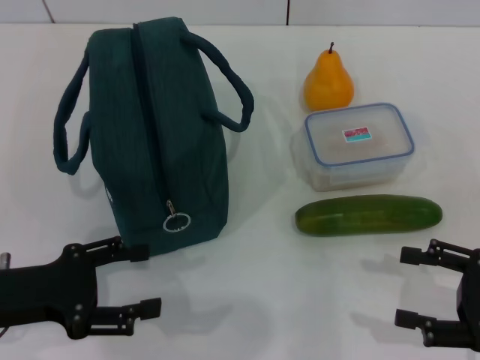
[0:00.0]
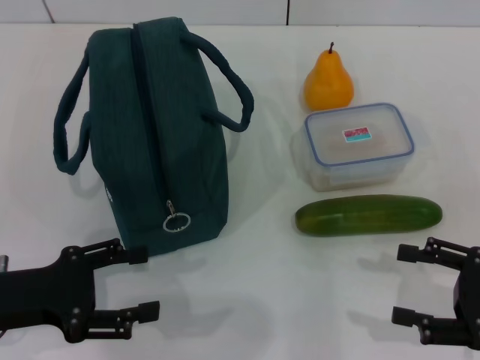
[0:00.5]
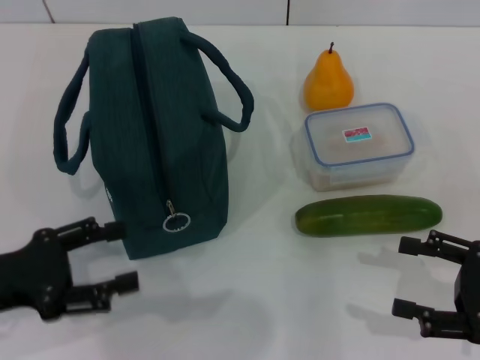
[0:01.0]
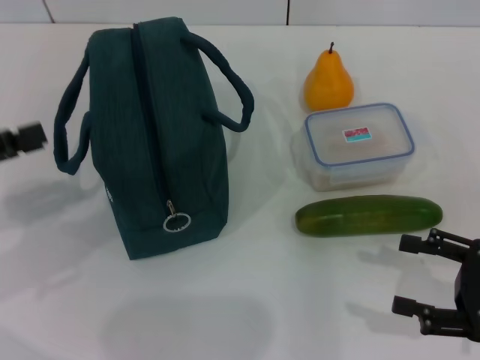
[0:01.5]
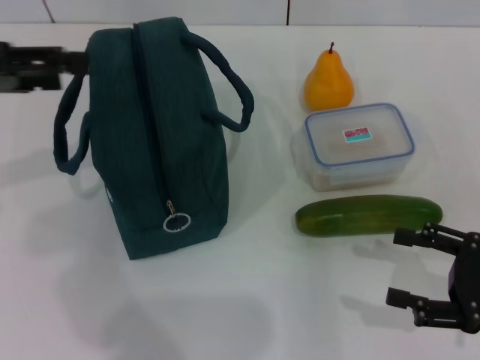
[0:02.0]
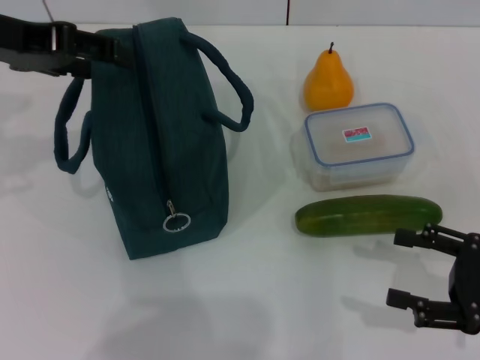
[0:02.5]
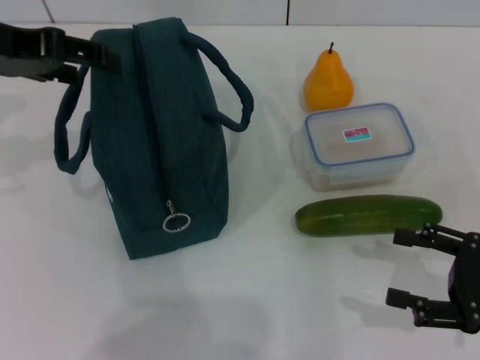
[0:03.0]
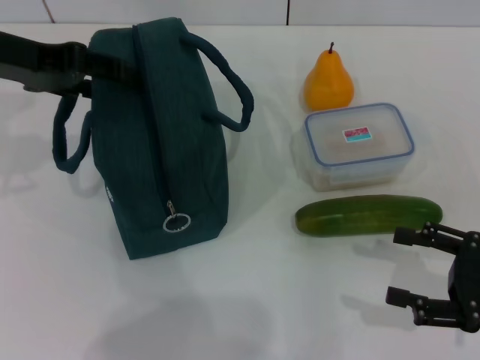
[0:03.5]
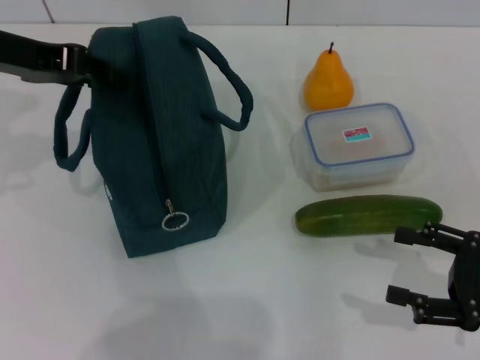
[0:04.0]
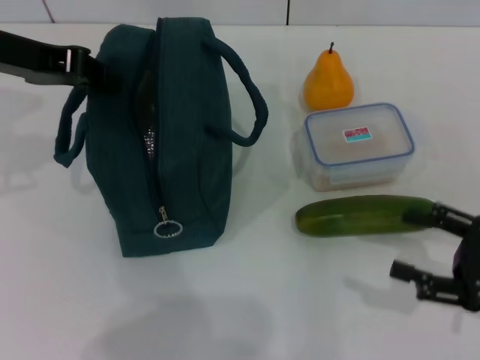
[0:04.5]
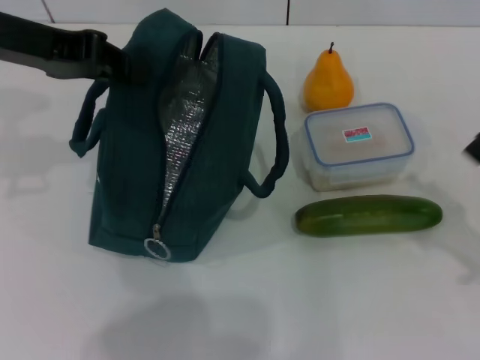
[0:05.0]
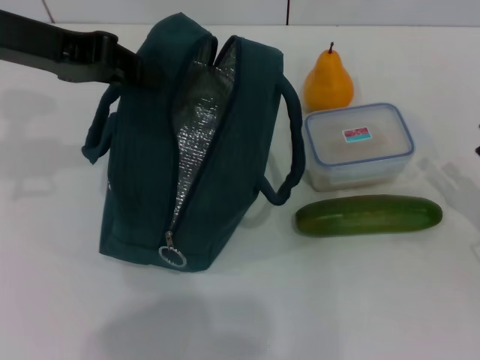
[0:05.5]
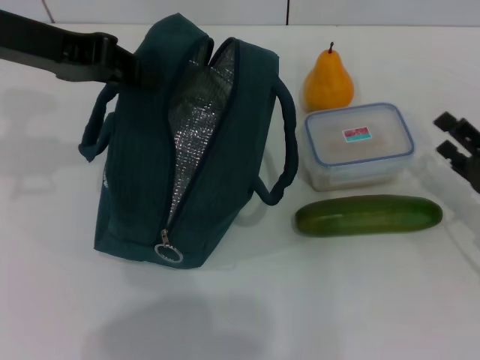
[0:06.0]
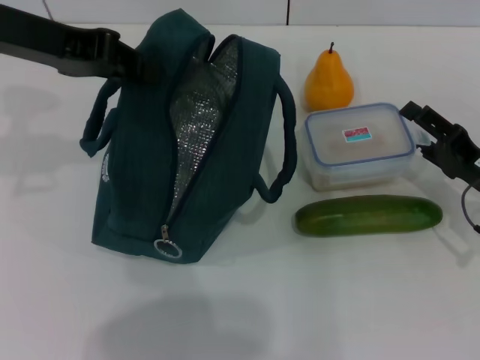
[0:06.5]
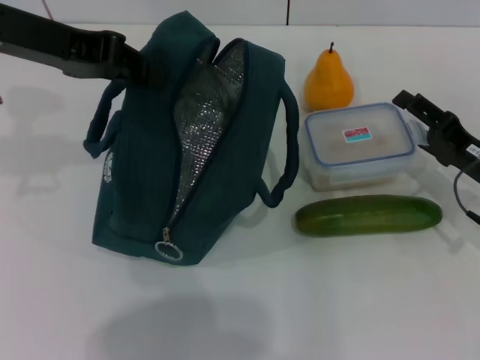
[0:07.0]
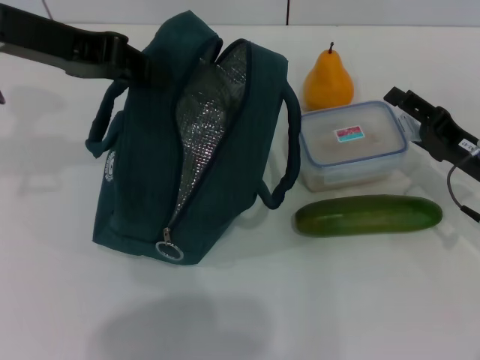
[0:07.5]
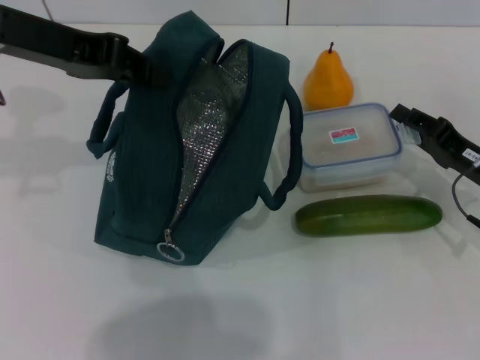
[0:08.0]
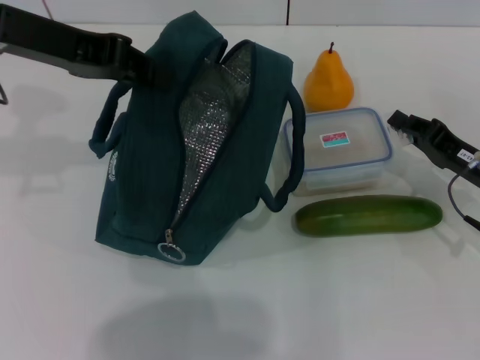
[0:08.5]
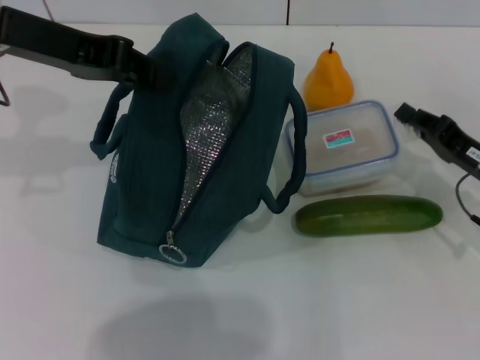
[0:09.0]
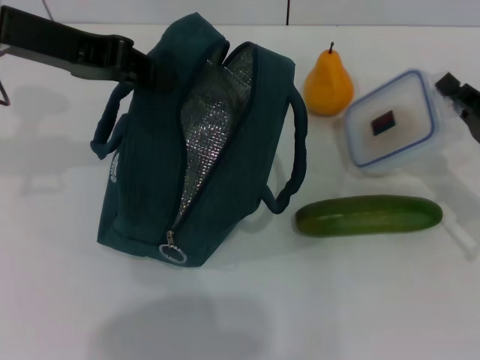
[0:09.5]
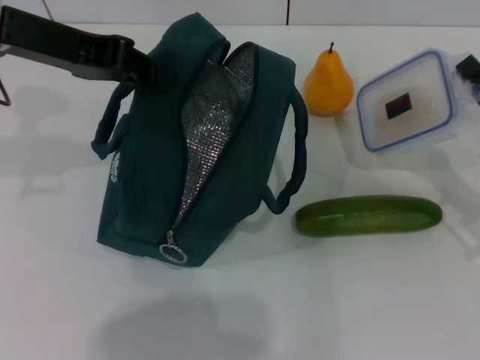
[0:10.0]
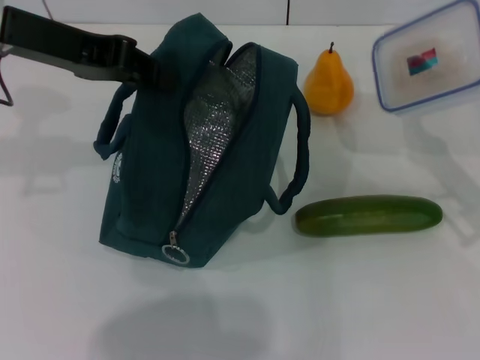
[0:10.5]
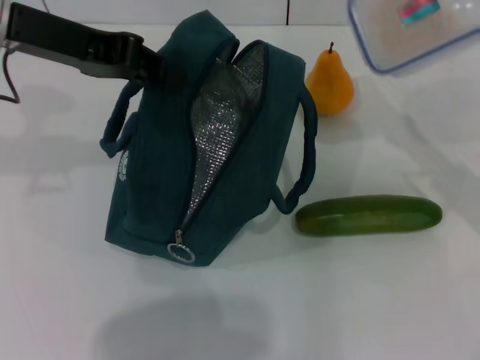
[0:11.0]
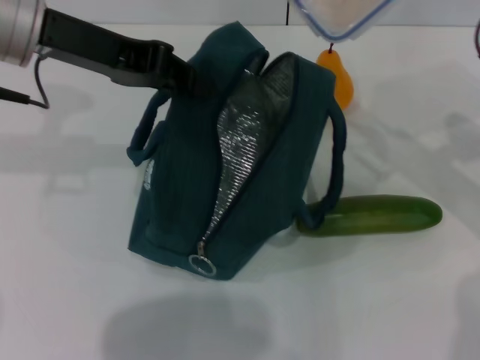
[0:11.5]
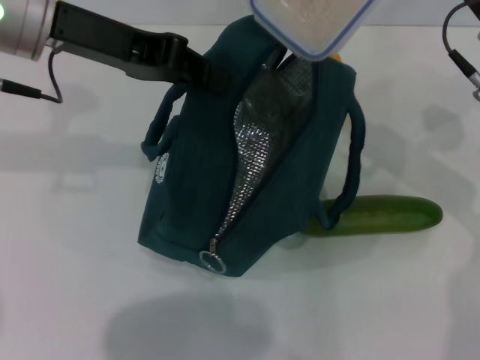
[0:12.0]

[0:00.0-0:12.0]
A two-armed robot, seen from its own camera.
Step, 0:00.0 to 0:04.5: Hold the lunch bag with your left hand.
0:00.0 to 0:02.0: The left gripper is displaced upward and forward by some 20 cm.
0:02.0 to 0:04.0: The left gripper is displaced forward by roughly 5 cm, and closes its fingers.
0:04.0 to 0:06.0: The right gripper goes about 5 cm forward; the left gripper closes.
0:06.0 to 0:08.0: The right gripper shifts by roughly 5 cm.
0:08.0 to 0:10.0: The right gripper closes up.
0:10.0 to 0:12.0: The right gripper travels upward, to the left and forward by approximately 15 cm.

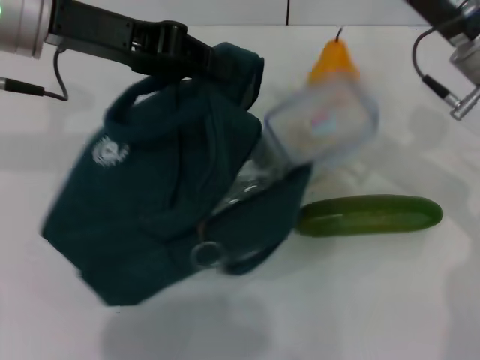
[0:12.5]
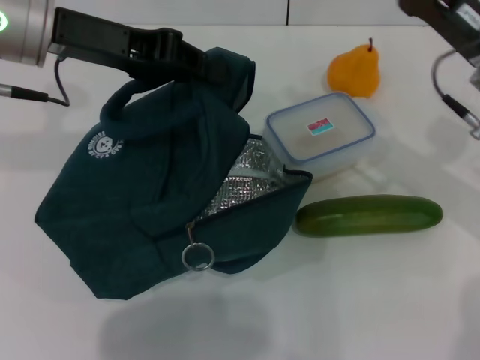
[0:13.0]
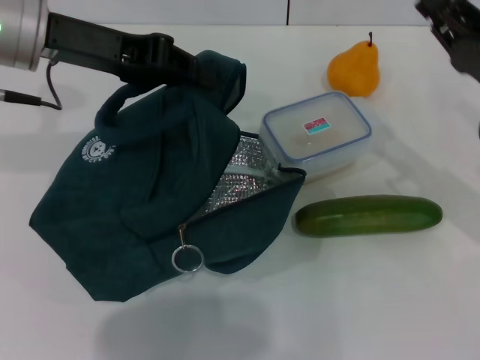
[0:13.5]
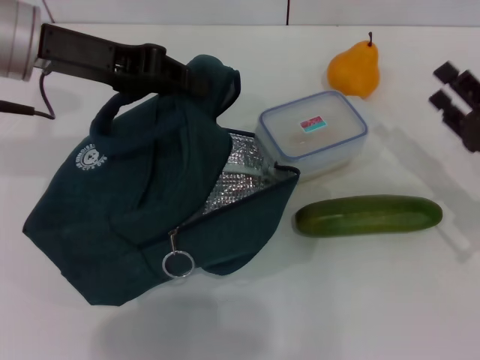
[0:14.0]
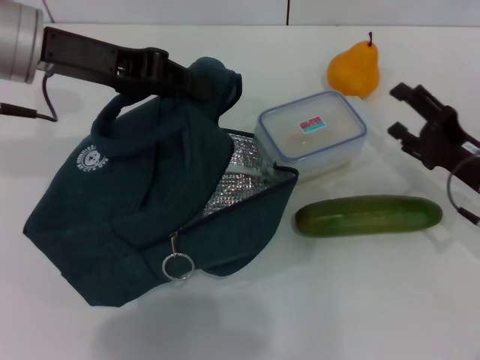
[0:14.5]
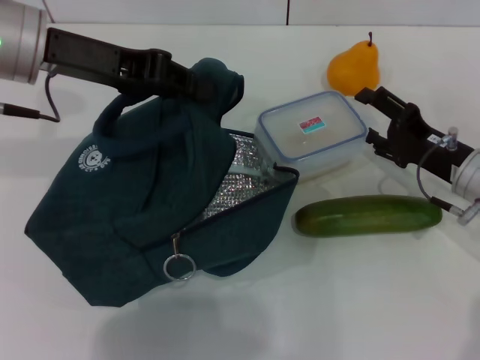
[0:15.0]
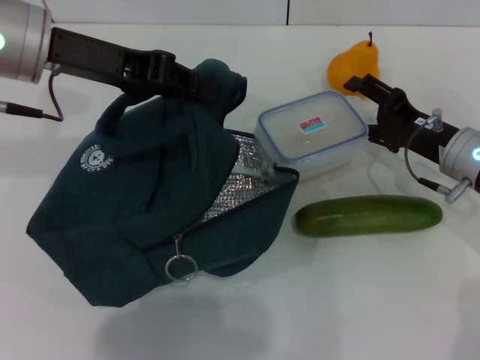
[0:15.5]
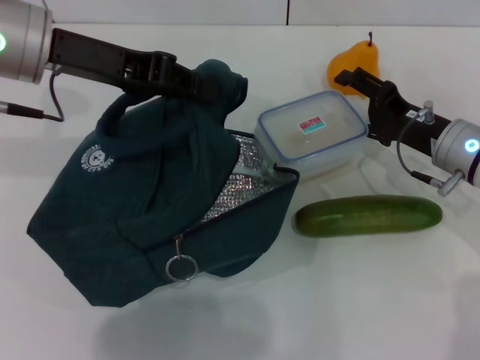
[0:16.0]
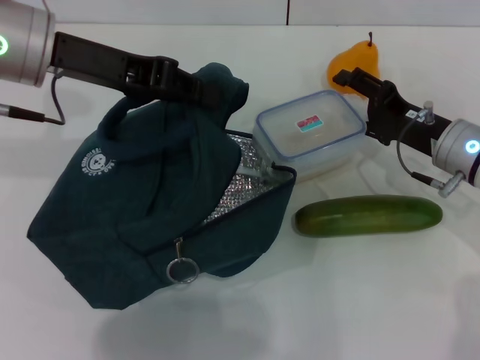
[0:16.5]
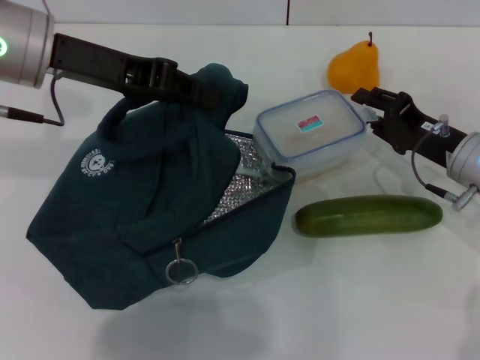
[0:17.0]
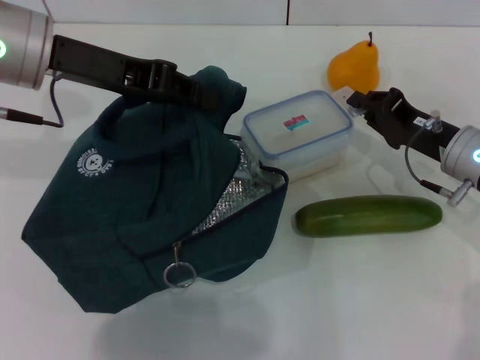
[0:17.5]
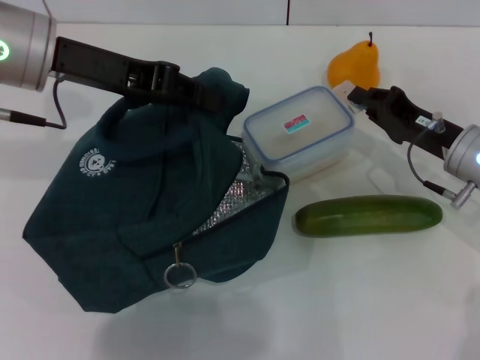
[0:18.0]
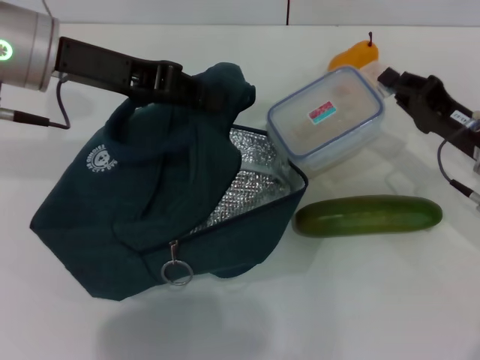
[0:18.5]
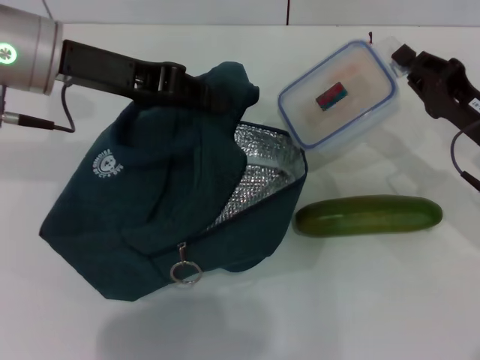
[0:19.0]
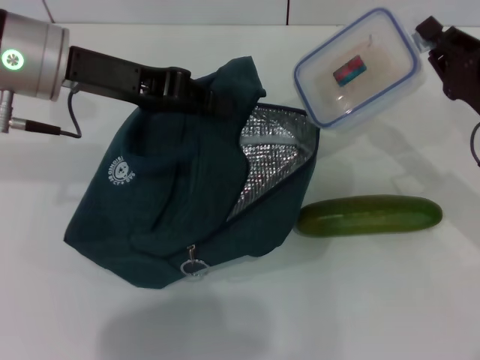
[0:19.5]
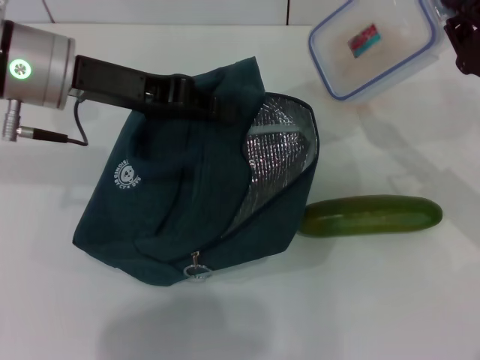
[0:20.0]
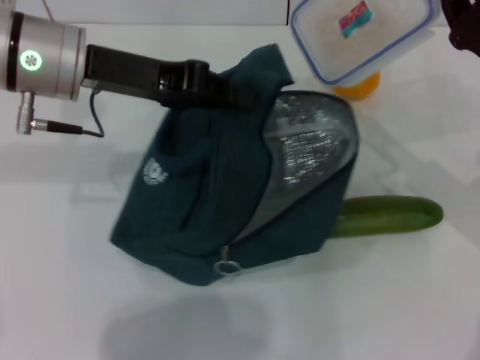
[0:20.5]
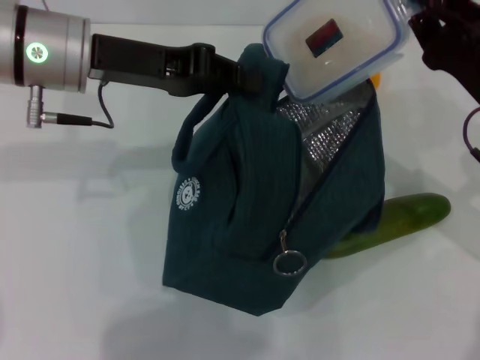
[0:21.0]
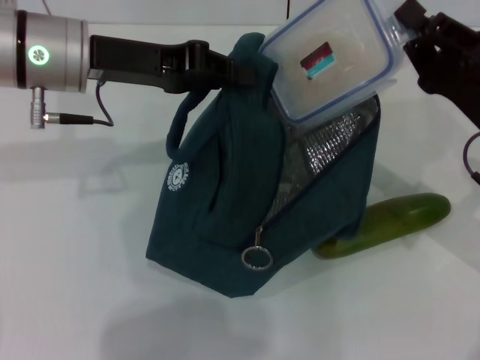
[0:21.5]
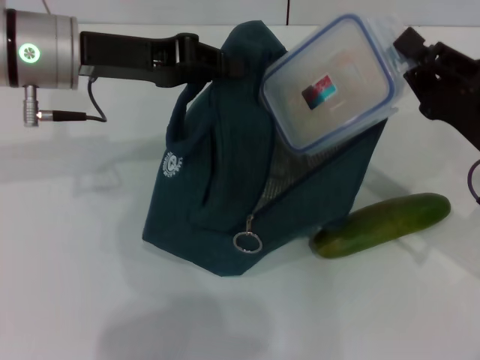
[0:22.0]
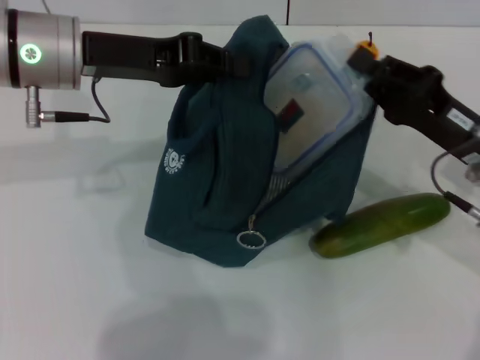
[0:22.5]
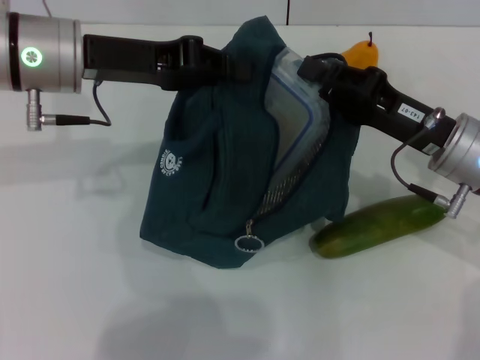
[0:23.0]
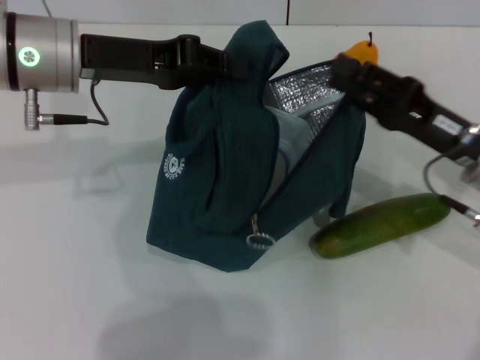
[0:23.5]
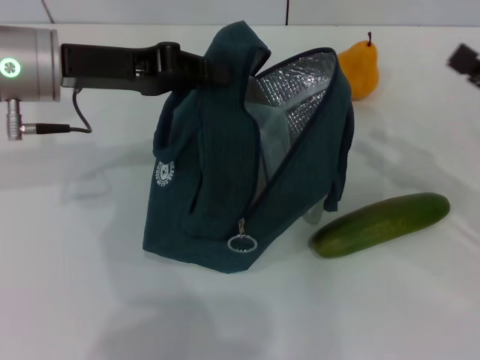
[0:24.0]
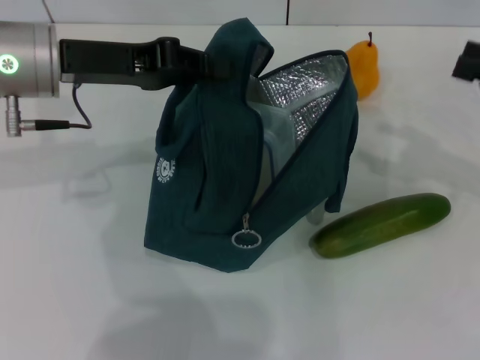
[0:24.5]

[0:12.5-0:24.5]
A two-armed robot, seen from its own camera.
Step, 0:12.5 to 0:17.5: Pick up the lunch box with your right hand.
Step, 0:18.0 to 0:23.5: Place the lunch box into the lunch bag with your right hand.
0:12.5 to 0:14.5: The right gripper shifts roughly 15 cm downward, to the right and backward, and opens its fingers.
0:14.5 to 0:16.5: The right gripper changes place by some 5 cm.
0:16.5 to 0:18.5: The right gripper closes up.
0:18.5 to 0:20.5: The right gripper travels upward by approximately 5 cm.
0:22.5 to 0:24.5: The right gripper is displaced to the right and upward by some 15 cm, and opens its fingers.

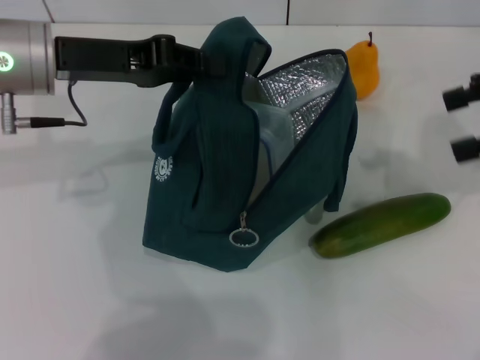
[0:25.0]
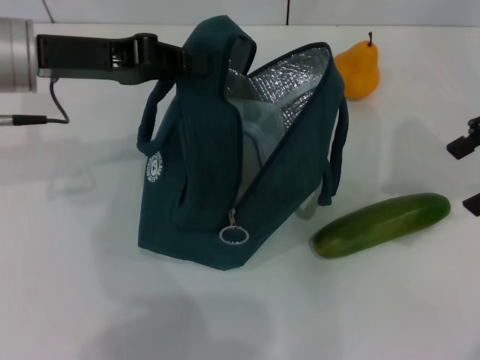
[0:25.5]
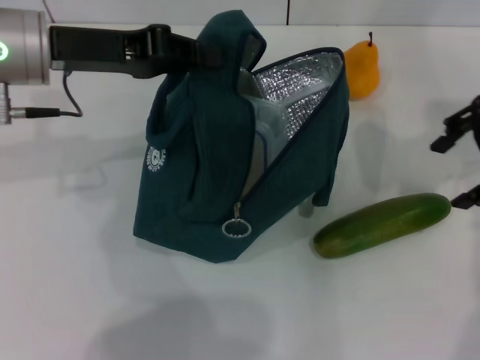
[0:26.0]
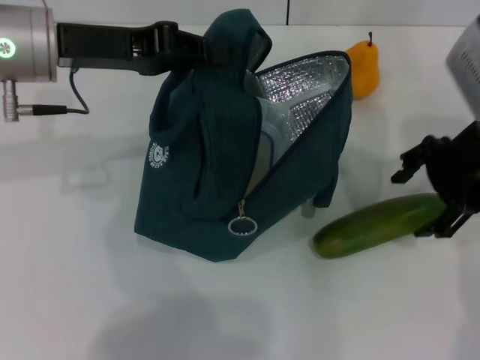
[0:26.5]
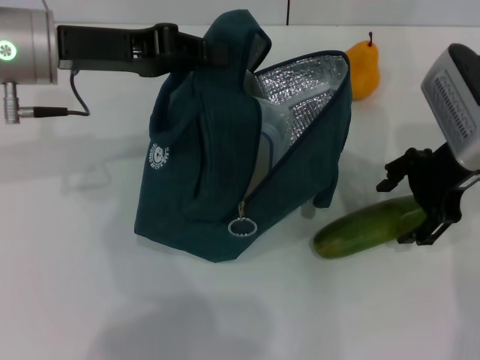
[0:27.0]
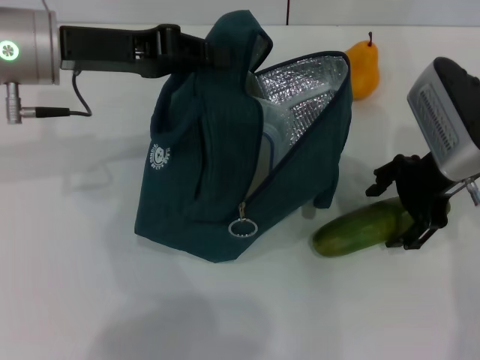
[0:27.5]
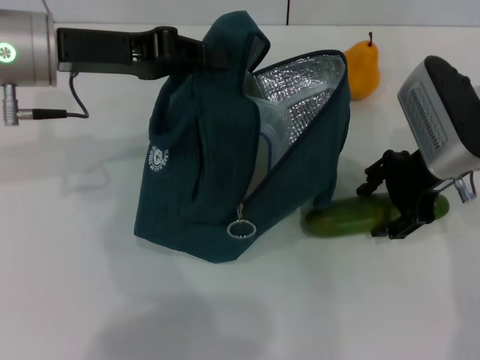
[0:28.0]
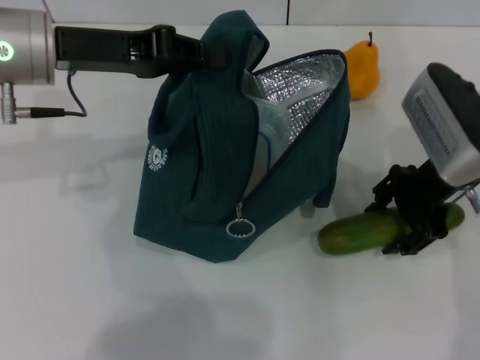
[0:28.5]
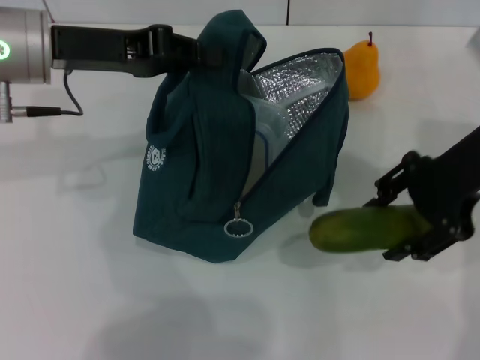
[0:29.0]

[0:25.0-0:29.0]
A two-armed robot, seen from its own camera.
Step, 0:25.0 to 0:28.0: Pick up the cucumber with your right hand.
0:25.0 to 0:27.0: The right gripper is displaced to the left and downward by about 15 cm.
0:27.0 to 0:29.0: The grippers move only a little.
